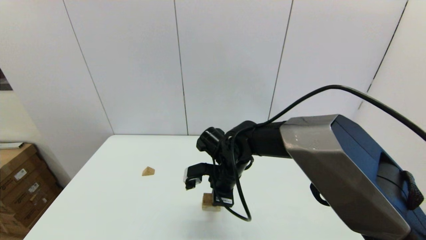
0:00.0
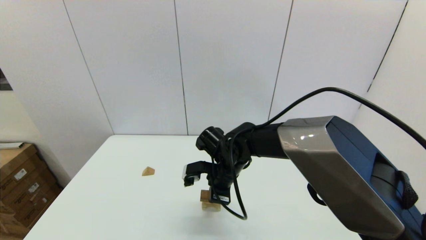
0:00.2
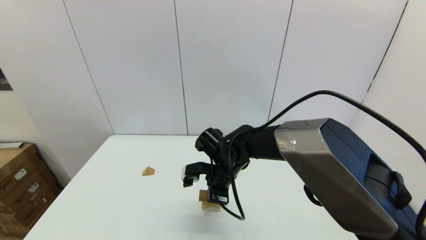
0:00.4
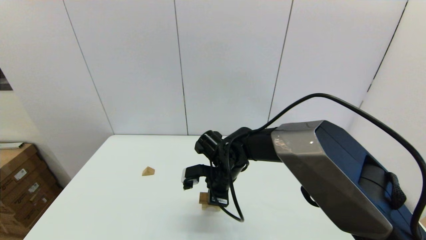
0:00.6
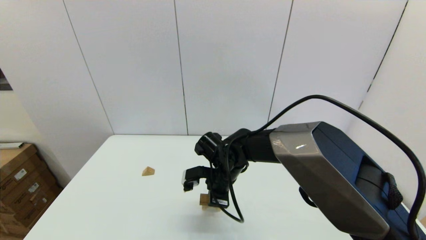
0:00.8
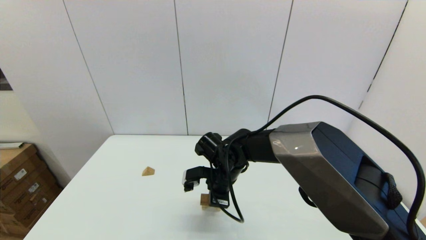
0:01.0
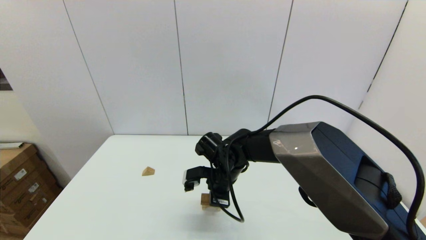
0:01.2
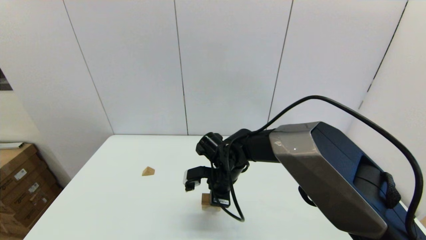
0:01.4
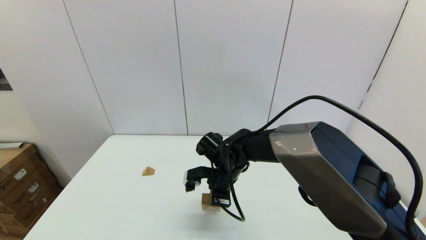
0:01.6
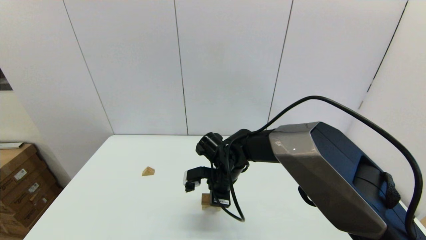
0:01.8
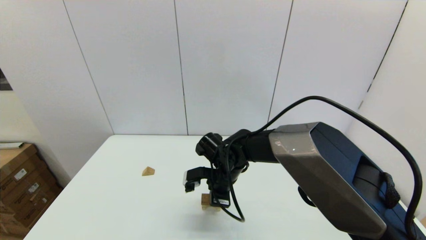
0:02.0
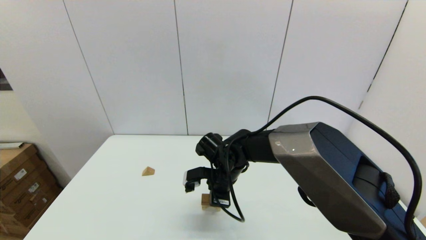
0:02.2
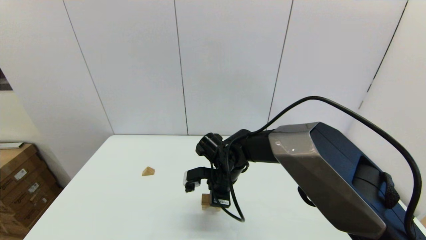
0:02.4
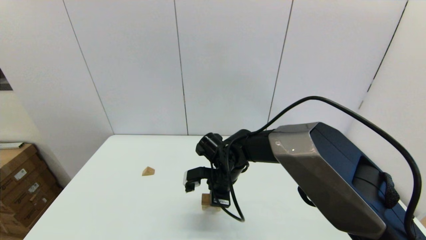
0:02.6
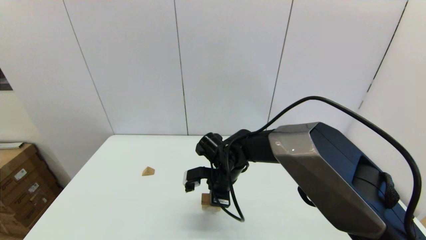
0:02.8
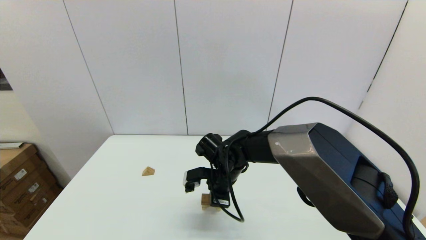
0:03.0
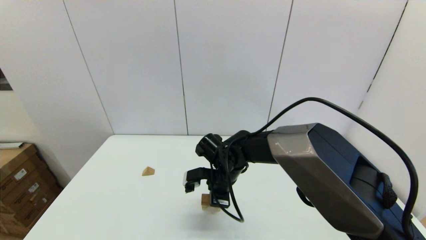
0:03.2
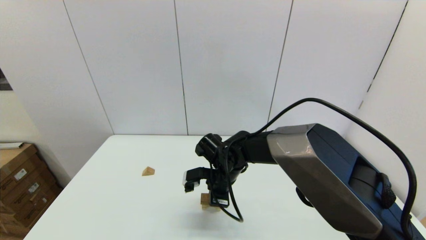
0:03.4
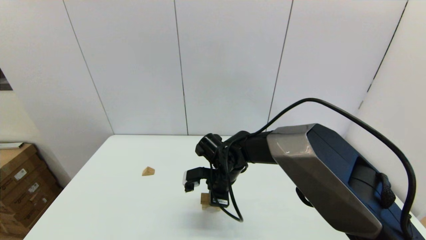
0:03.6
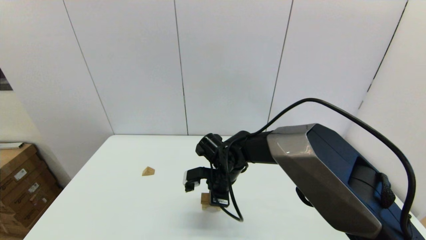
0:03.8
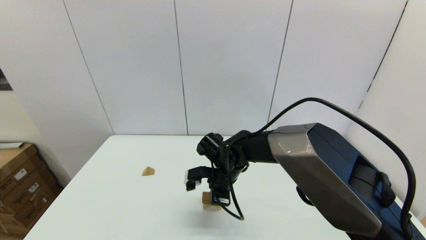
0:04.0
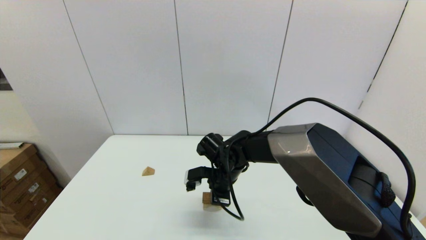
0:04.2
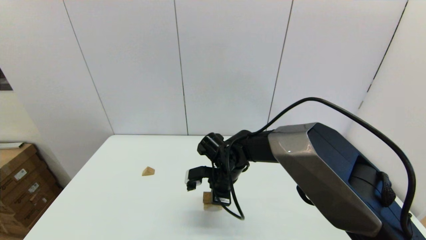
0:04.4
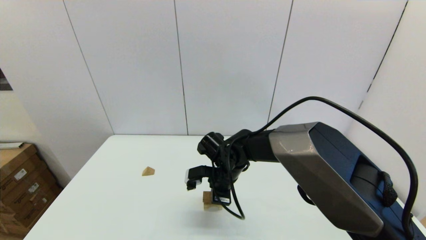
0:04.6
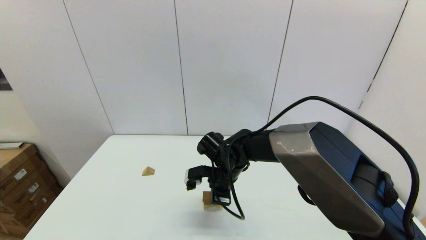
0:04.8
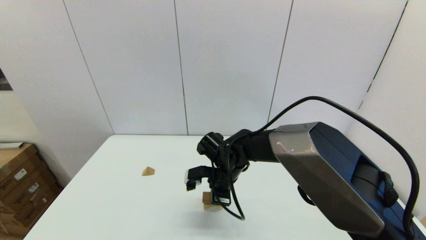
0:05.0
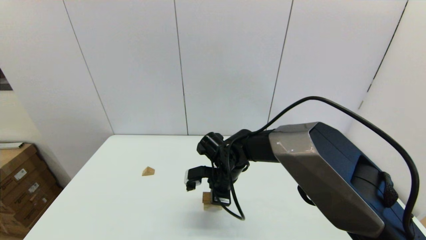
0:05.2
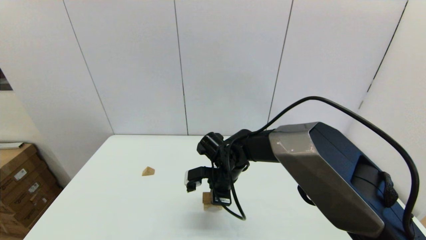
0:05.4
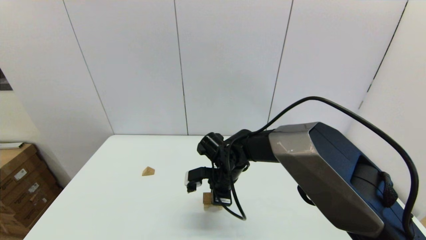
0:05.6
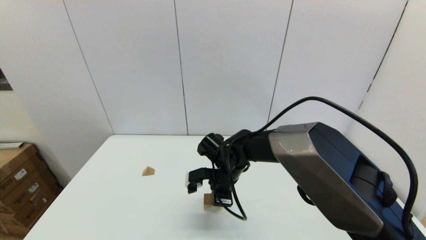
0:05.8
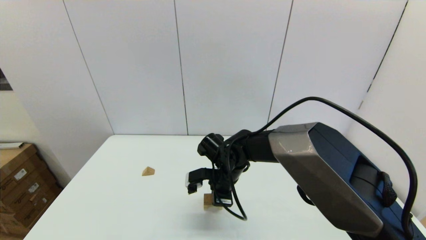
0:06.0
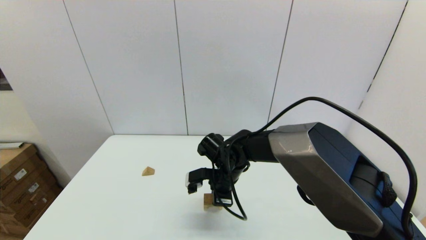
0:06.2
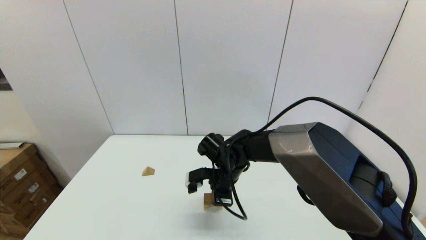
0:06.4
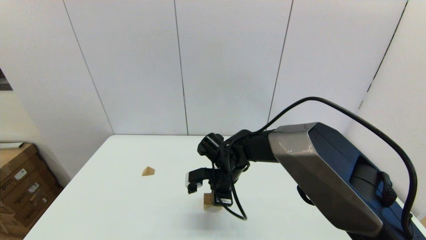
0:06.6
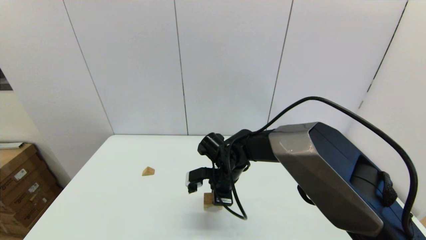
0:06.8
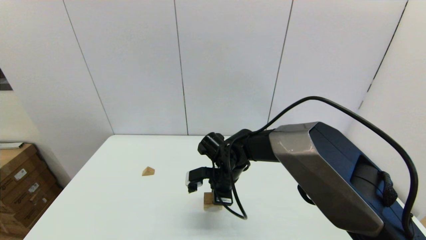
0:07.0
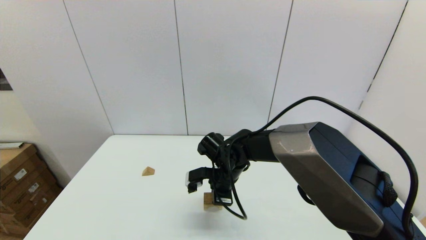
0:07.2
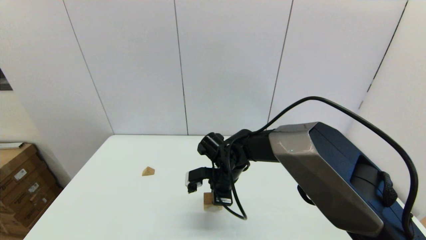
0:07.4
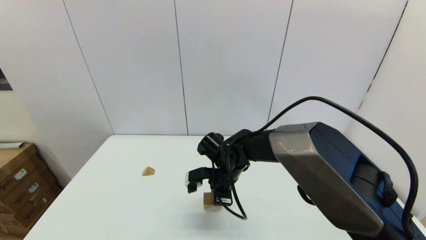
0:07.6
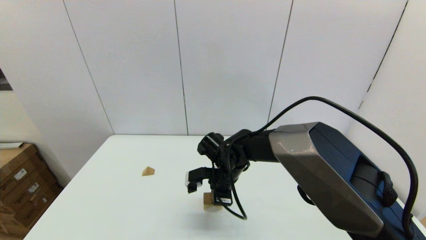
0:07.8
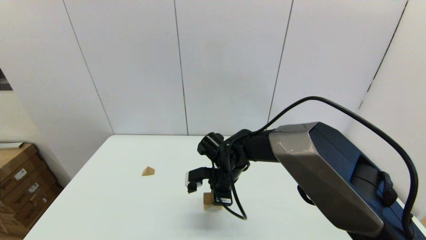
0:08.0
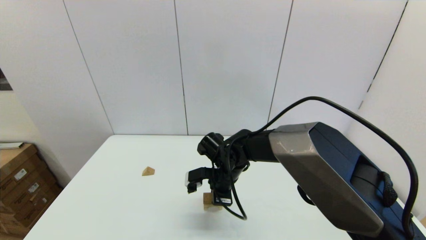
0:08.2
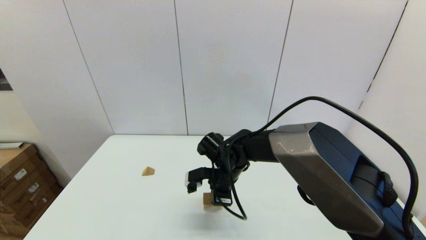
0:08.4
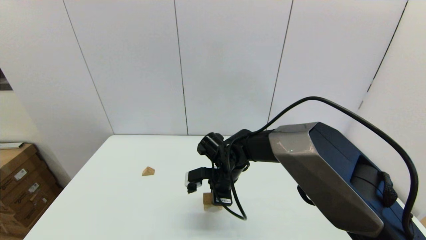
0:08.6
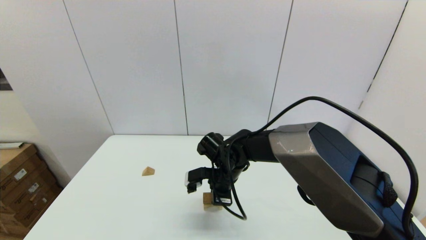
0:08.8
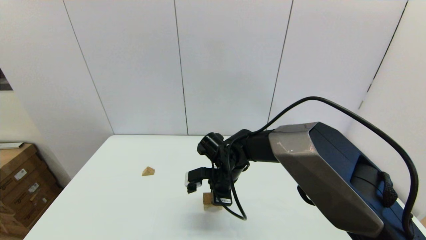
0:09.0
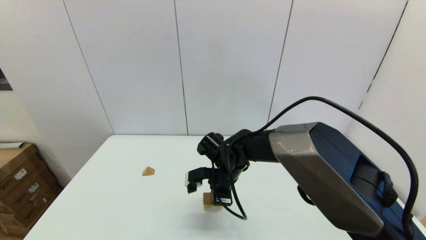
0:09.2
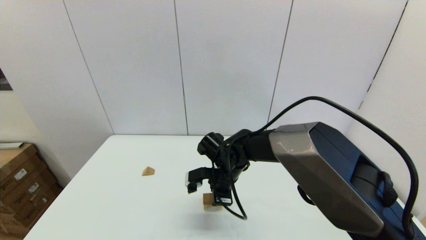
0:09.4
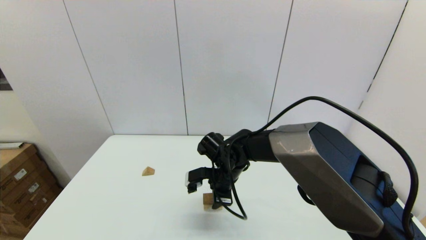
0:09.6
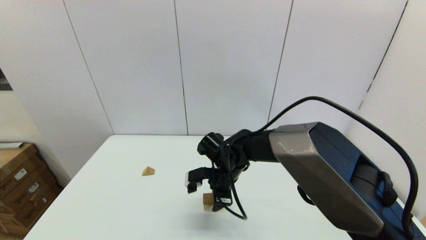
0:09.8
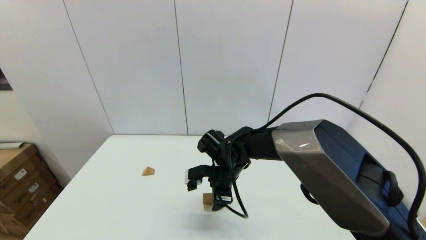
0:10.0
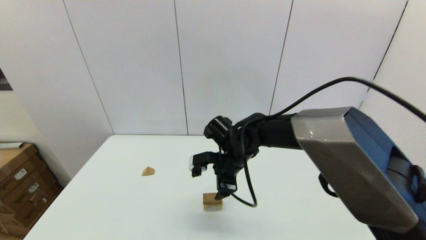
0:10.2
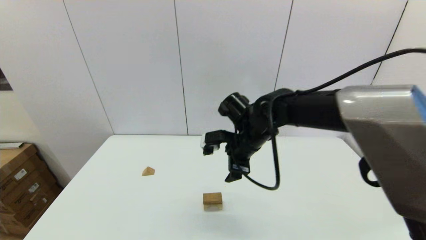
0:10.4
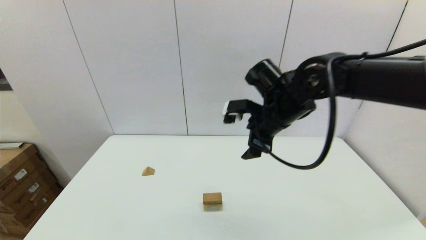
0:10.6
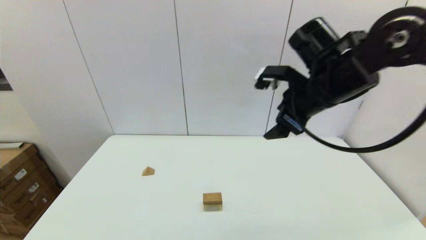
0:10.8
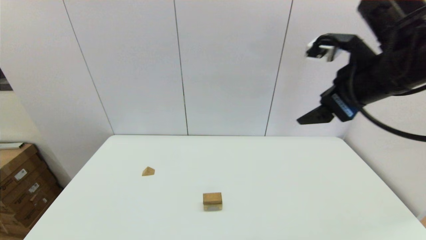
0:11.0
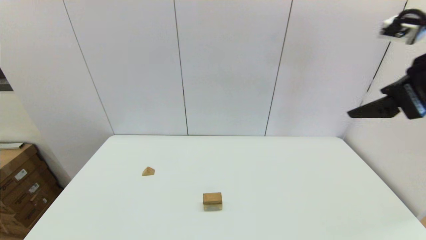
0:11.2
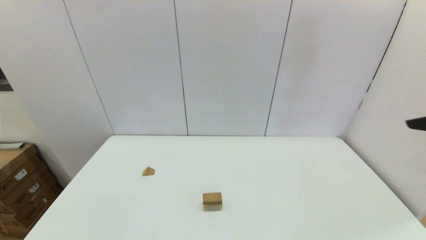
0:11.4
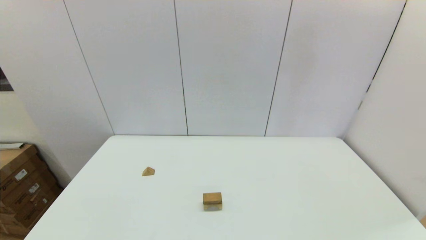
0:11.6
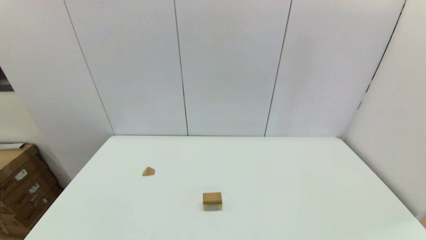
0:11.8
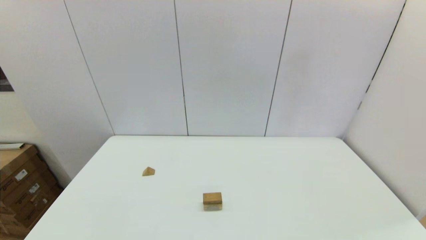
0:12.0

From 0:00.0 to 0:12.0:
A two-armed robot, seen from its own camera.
Task of the whole recording: place the arched building blocks in the center of the table, set up the rectangular building blocks, and then set up the triangular building blocks.
Step, from 0:00.0 to 0:09.4: Place the box-shaped block onto the arch-shaped block with the right gripper.
From 0:00.0 to 0:01.6: The grippers make only small movements.
From 0:01.6 to 0:09.0: Both grippers stay about where they are.
From 0:09.0 to 0:10.4: The right gripper travels upward and to the right by approximately 10 cm, and opens.
From 0:10.4 to 0:12.0: The right gripper moves backward and to the right, some 50 cm.

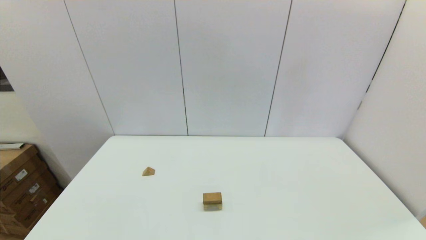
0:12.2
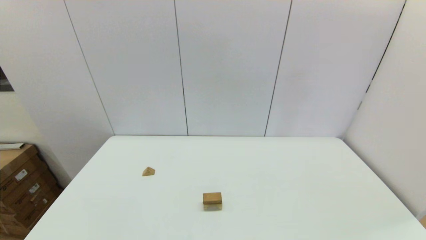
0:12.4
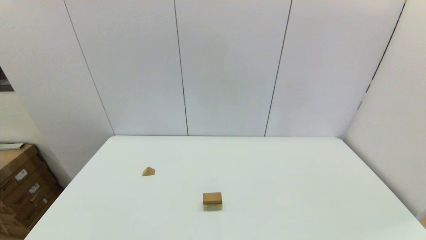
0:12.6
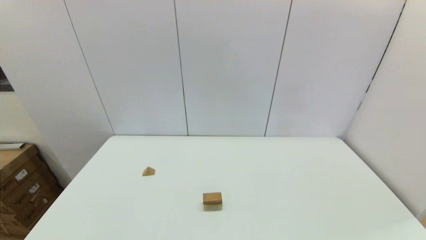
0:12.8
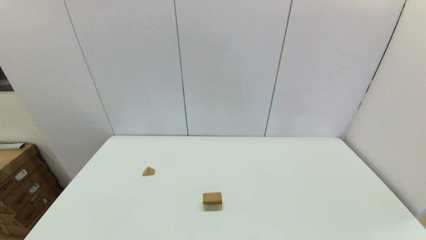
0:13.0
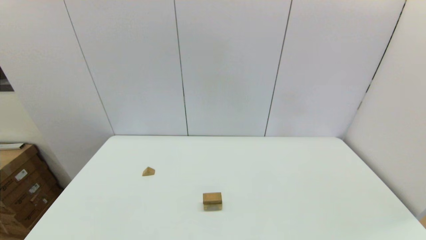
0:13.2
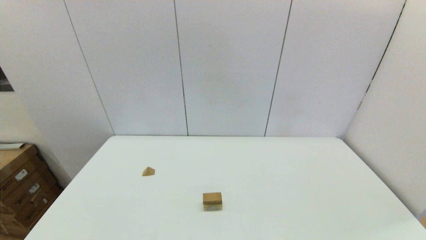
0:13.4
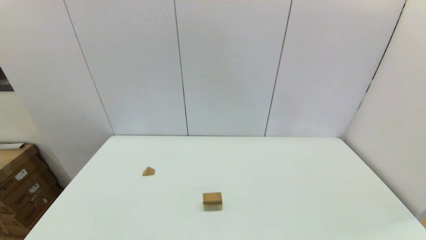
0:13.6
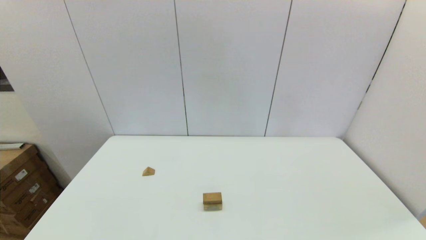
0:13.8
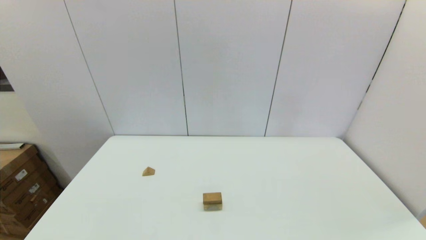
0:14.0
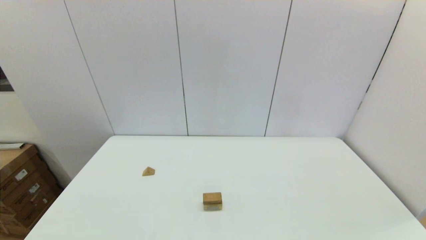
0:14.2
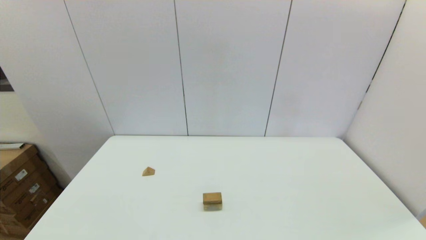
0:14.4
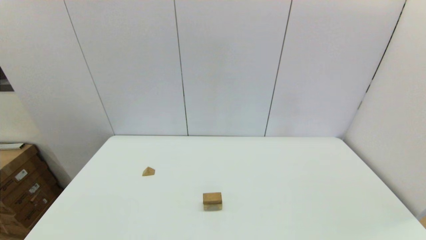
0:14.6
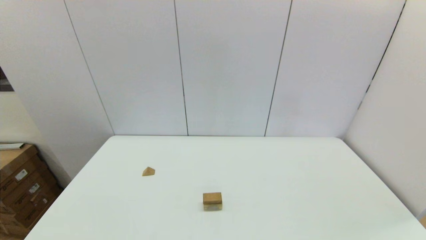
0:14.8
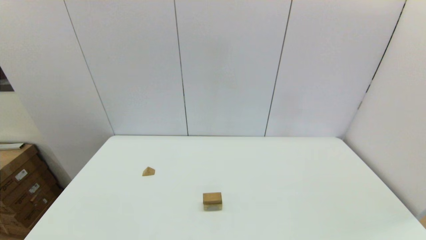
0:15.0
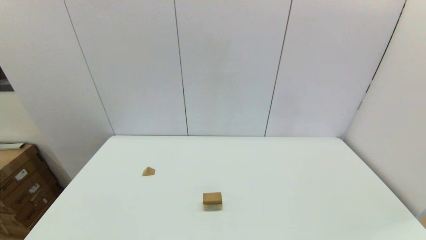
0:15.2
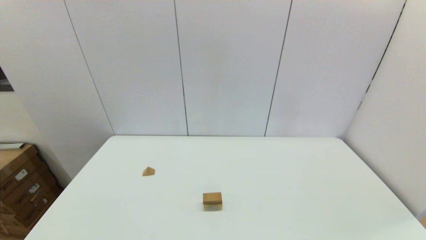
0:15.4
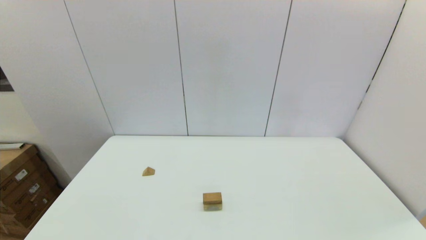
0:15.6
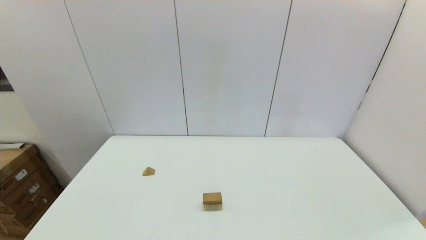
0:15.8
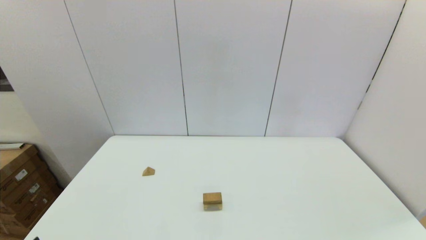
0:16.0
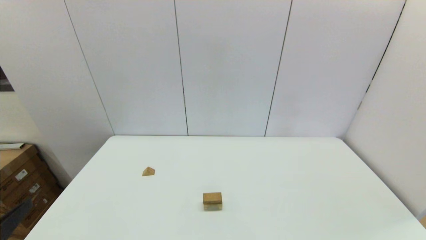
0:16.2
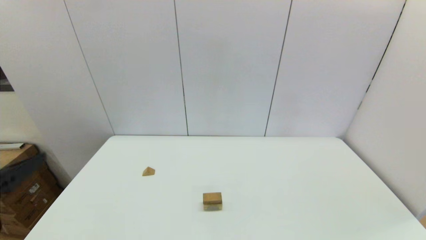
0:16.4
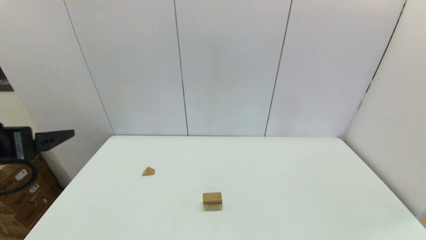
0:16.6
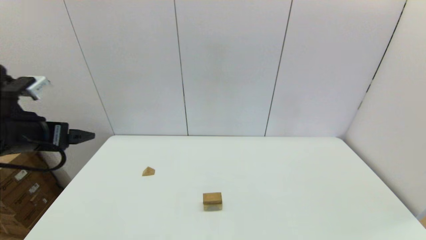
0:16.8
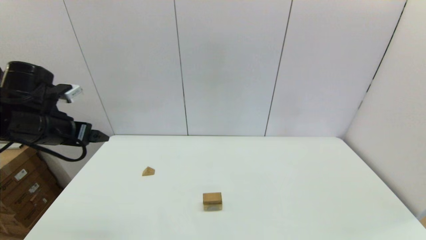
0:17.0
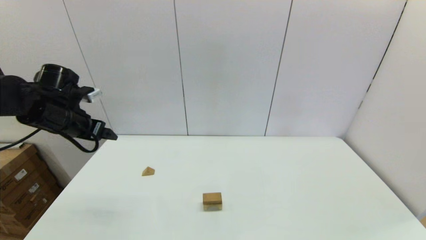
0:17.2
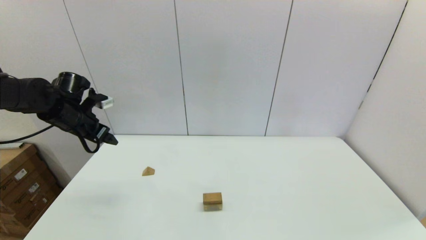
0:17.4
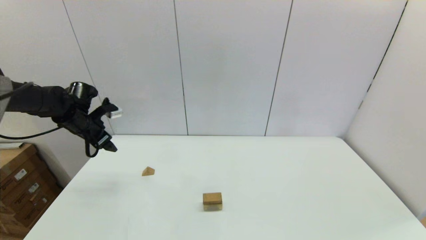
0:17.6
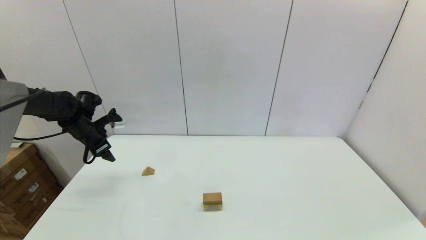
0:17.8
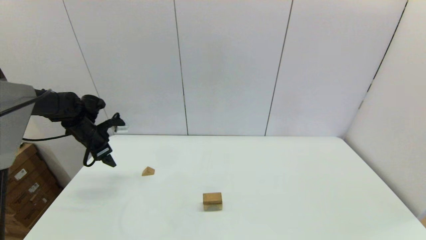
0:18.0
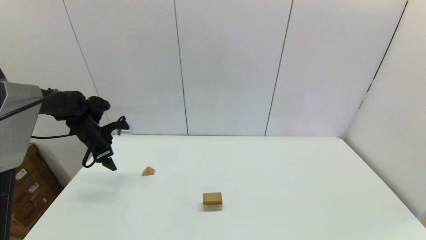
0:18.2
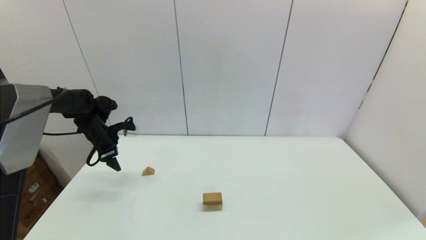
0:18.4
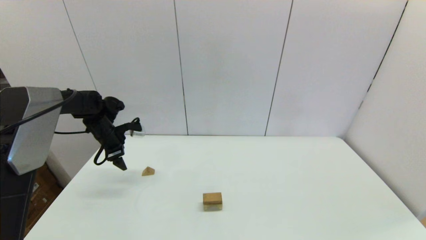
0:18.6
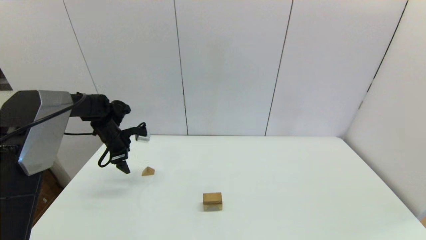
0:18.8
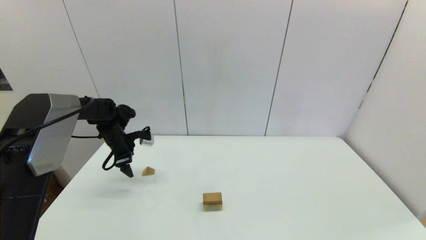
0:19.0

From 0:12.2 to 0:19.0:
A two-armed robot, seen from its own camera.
Task of the whole recording: place the arched building blocks in the center of the table, set up the rectangular building blocks, and then set up the triangular building blocks.
From 0:16.2 to 0:17.6: The left gripper travels forward by roughly 35 cm.
From 0:17.6 to 0:19.0: The left gripper goes roughly 10 cm downward and to the right.
